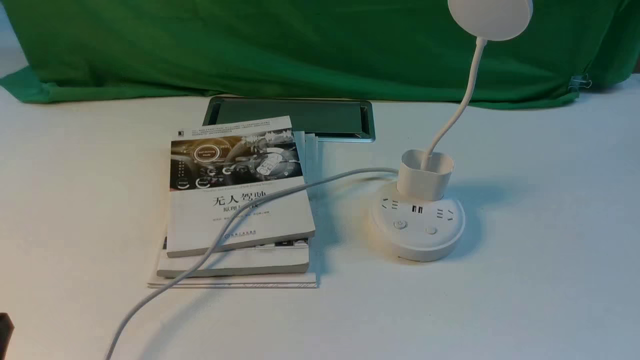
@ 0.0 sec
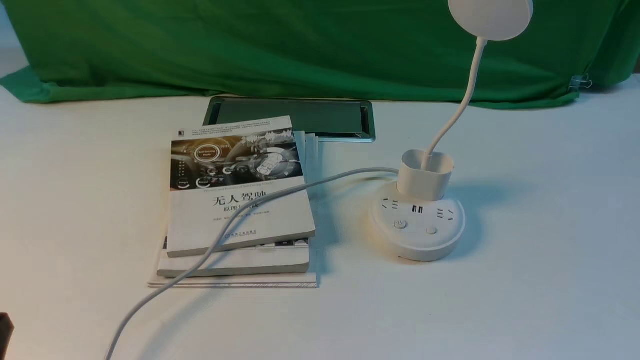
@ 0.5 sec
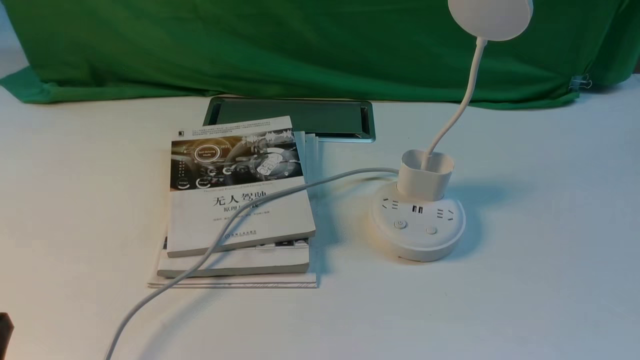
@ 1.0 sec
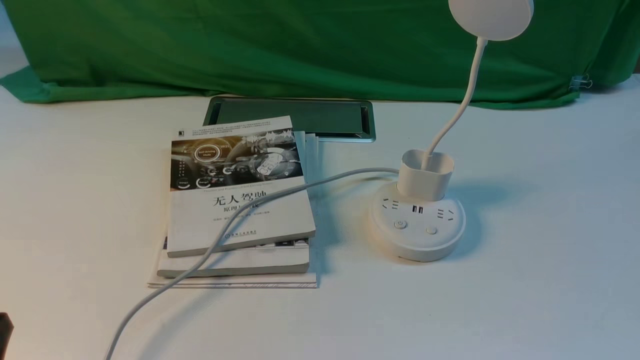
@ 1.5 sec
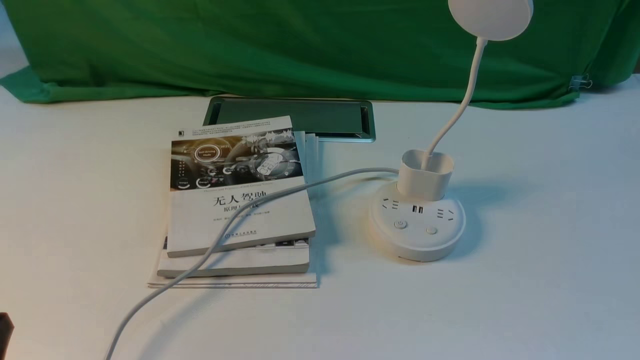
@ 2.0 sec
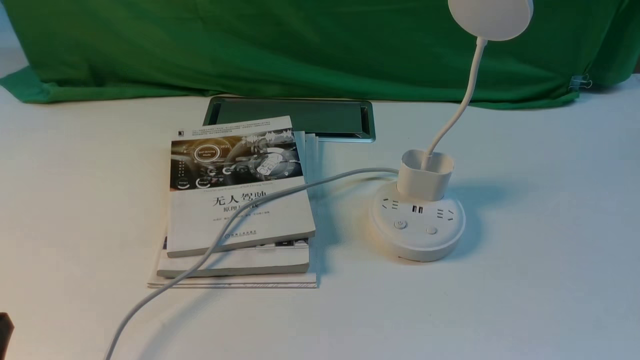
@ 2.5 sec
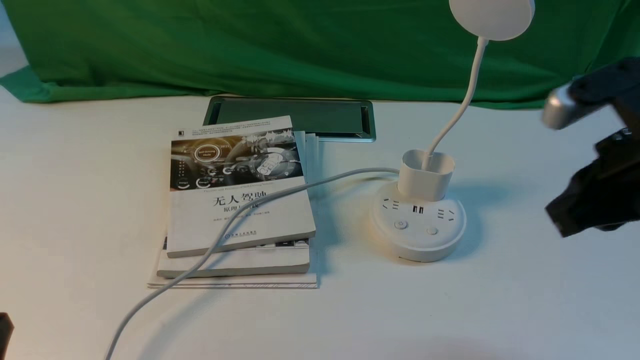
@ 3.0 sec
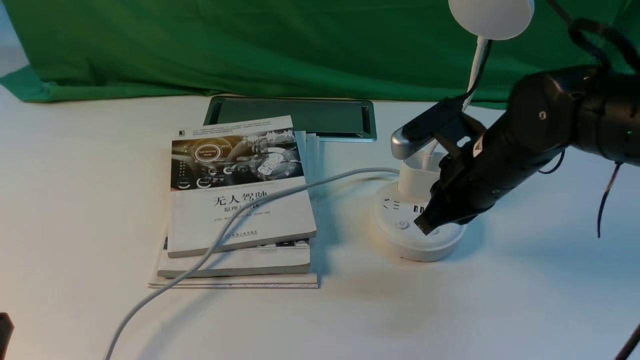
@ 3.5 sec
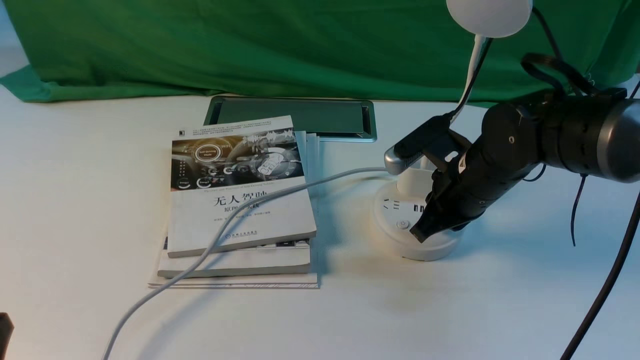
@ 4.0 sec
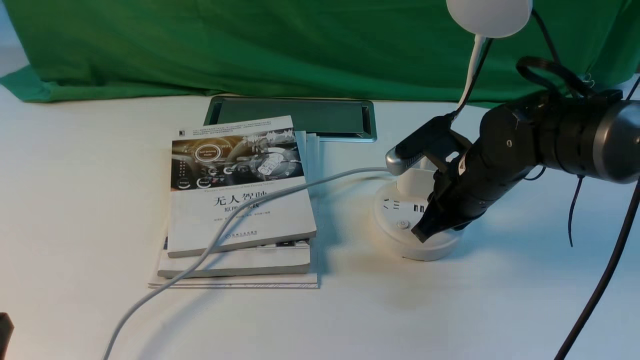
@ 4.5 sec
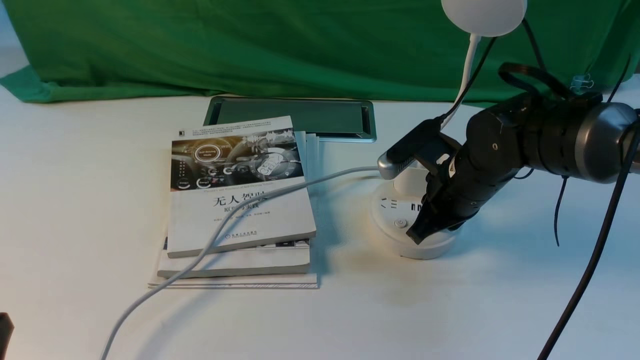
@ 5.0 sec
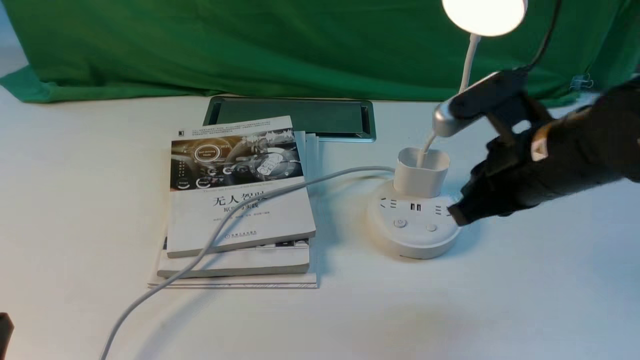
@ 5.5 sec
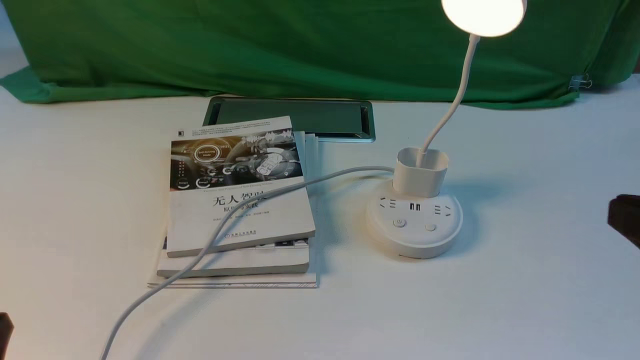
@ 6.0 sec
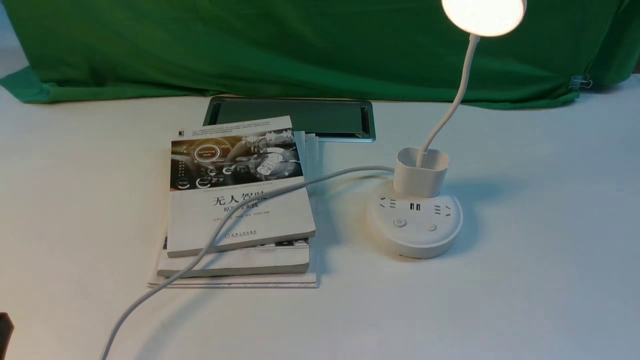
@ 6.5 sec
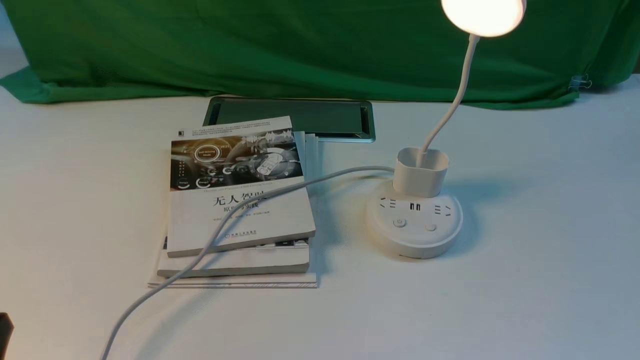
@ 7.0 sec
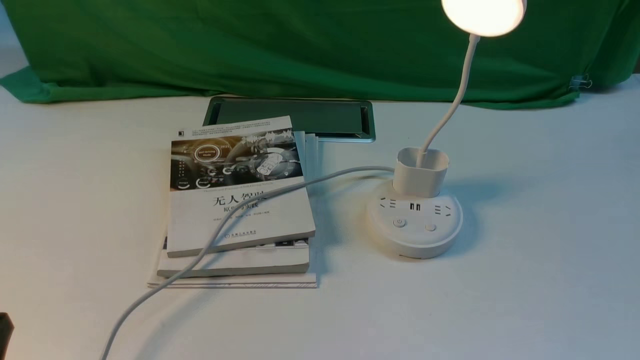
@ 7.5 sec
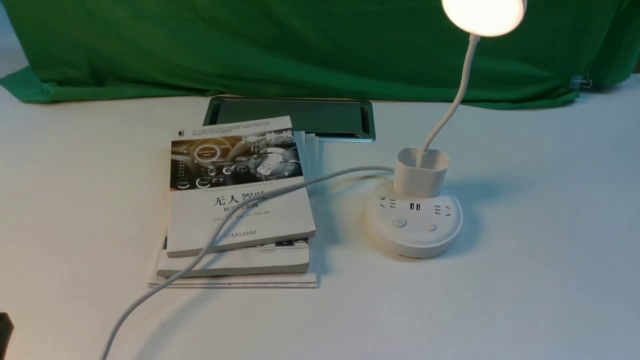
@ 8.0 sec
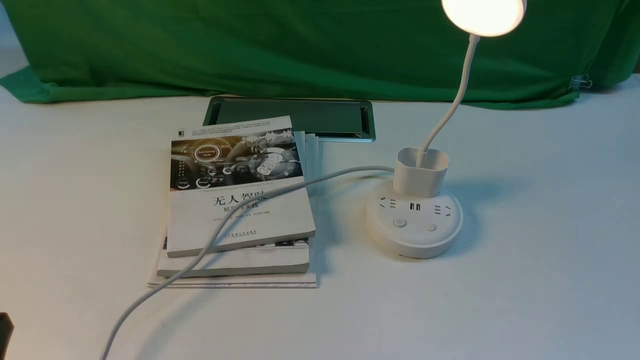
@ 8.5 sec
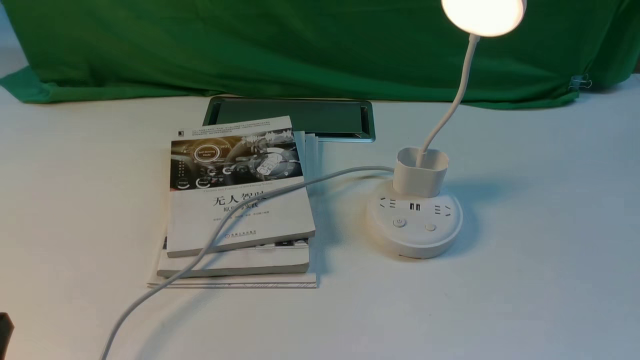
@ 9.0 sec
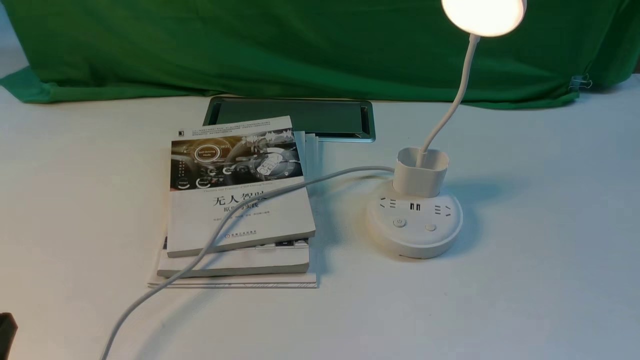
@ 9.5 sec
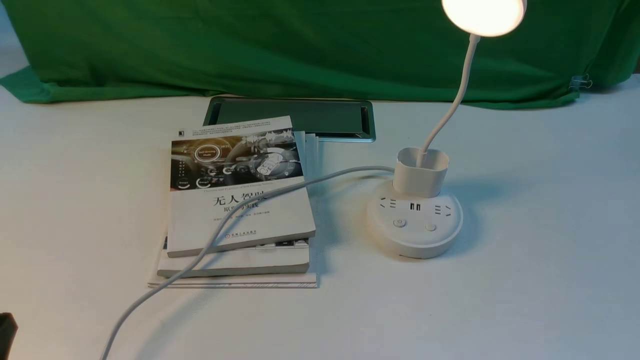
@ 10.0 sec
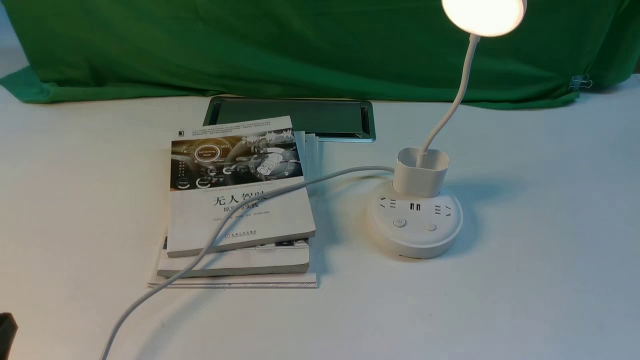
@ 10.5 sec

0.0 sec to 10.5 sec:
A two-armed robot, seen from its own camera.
Step, 0.0 sec to 5.5 sec: use the right arm to press the button switch on the lamp holder.
2.0 sec to 4.0 sec: The right gripper heads forward and to the left, covering approximately 35 cm, and closes.
4.0 sec to 6.5 sec: The right gripper moves backward and to the right, about 30 cm, and opens its fingers.
8.5 sec to 10.5 sec: Both grippers stay put.

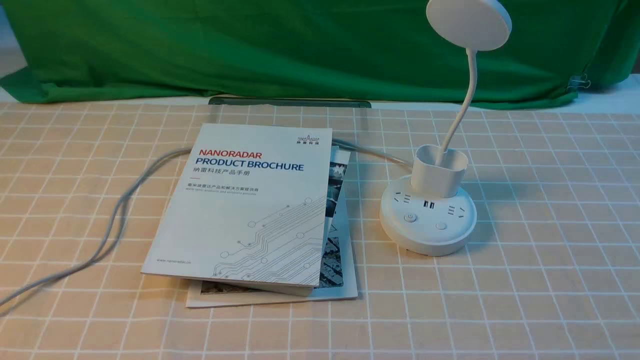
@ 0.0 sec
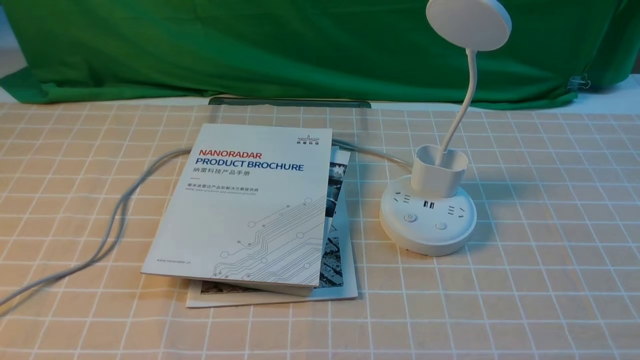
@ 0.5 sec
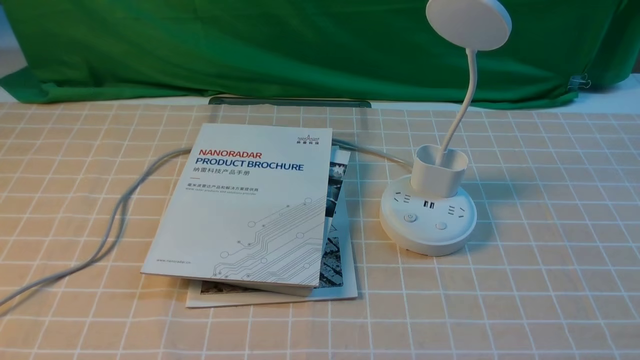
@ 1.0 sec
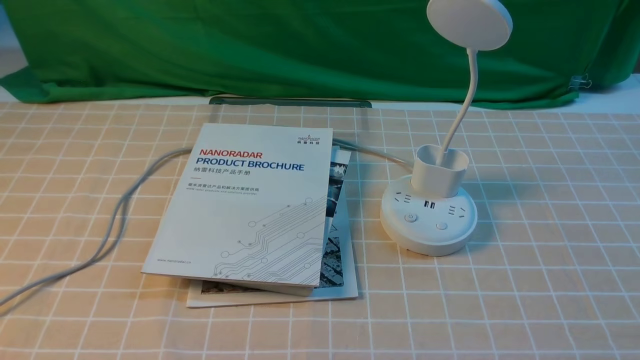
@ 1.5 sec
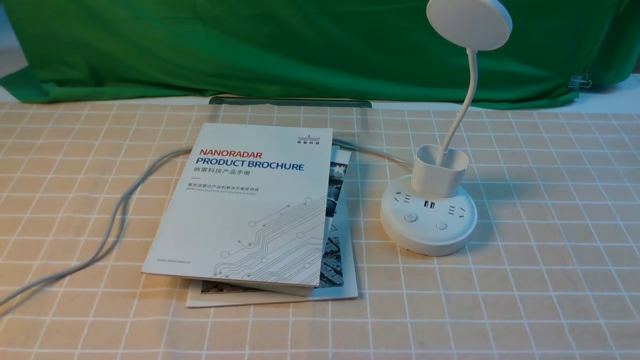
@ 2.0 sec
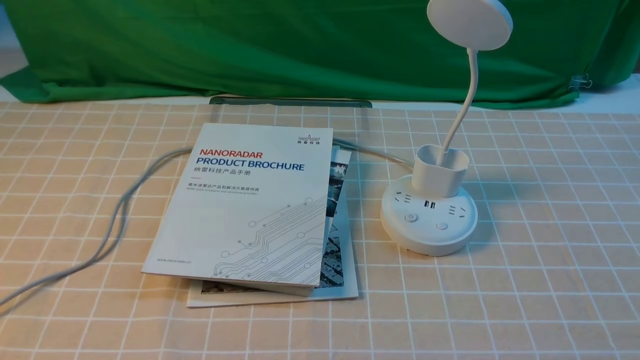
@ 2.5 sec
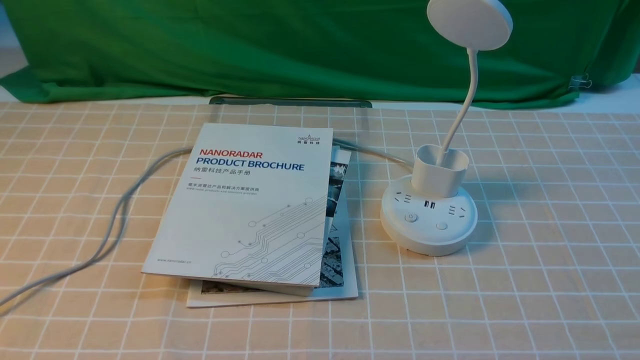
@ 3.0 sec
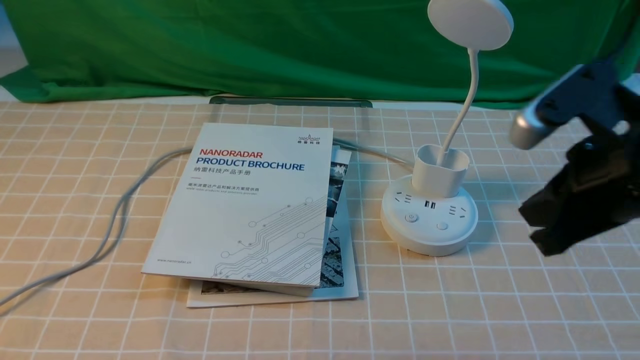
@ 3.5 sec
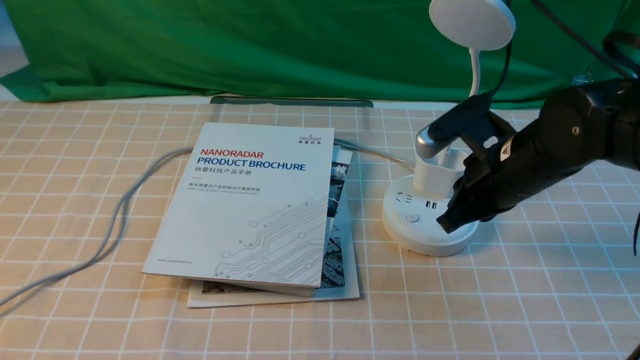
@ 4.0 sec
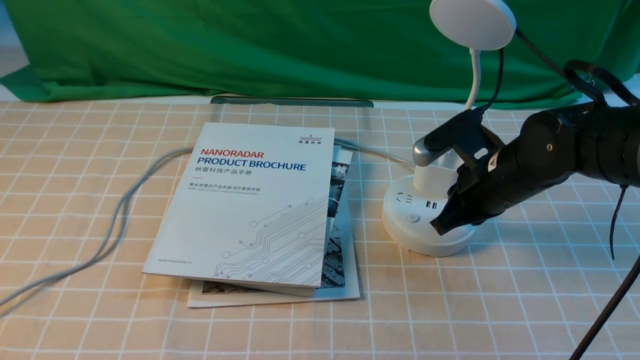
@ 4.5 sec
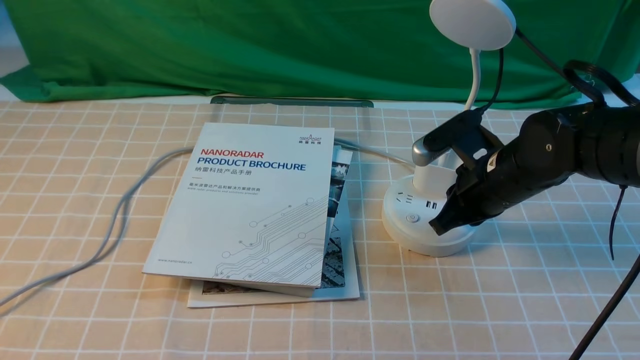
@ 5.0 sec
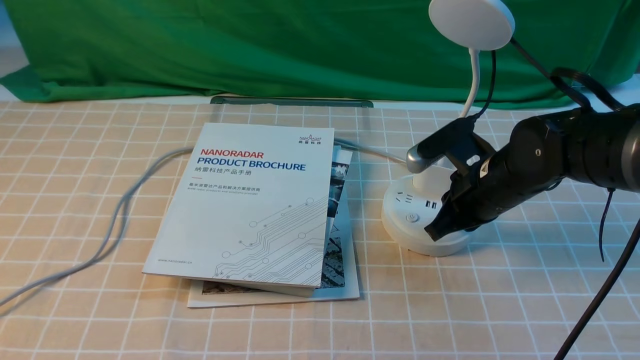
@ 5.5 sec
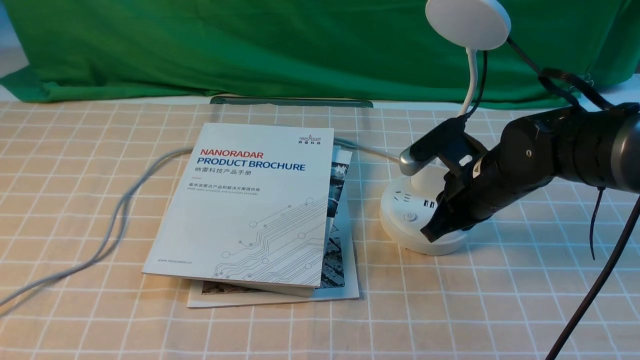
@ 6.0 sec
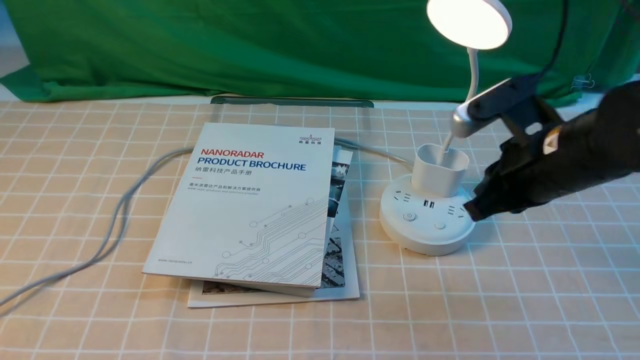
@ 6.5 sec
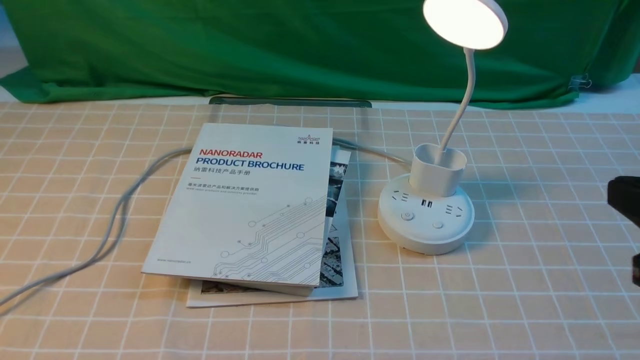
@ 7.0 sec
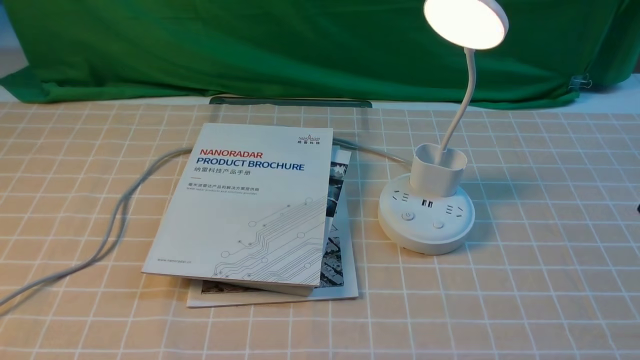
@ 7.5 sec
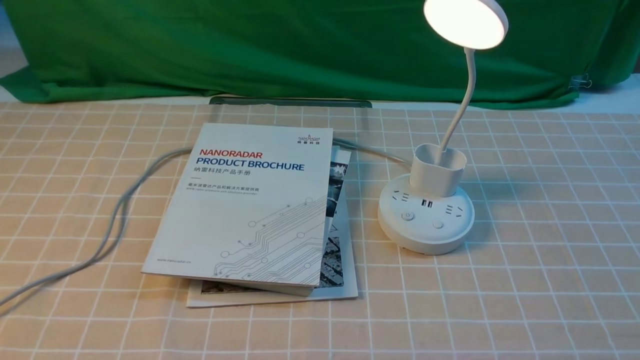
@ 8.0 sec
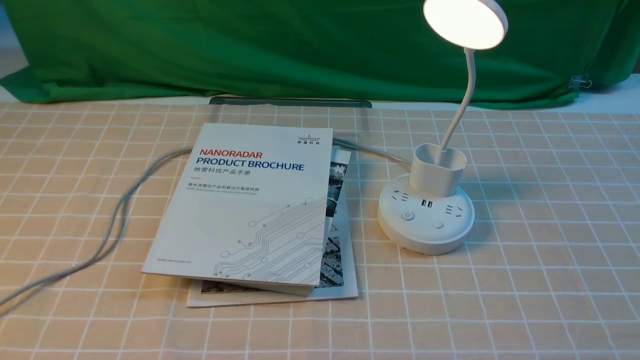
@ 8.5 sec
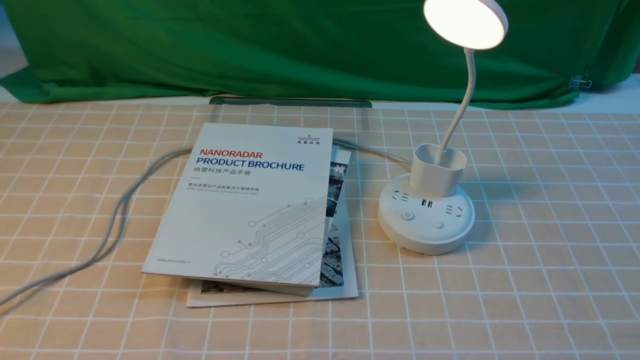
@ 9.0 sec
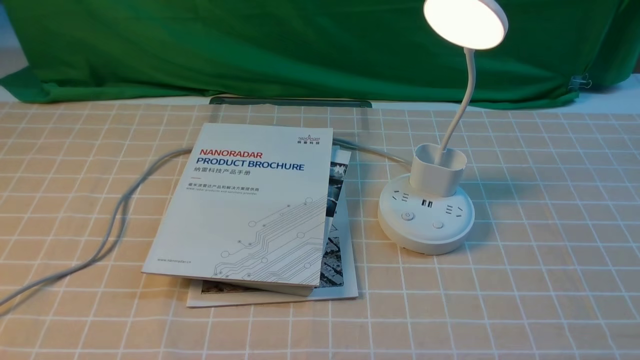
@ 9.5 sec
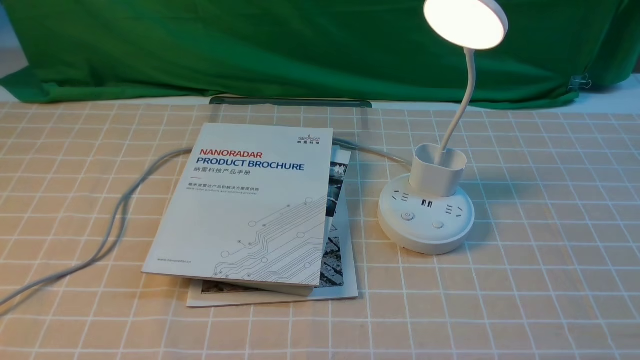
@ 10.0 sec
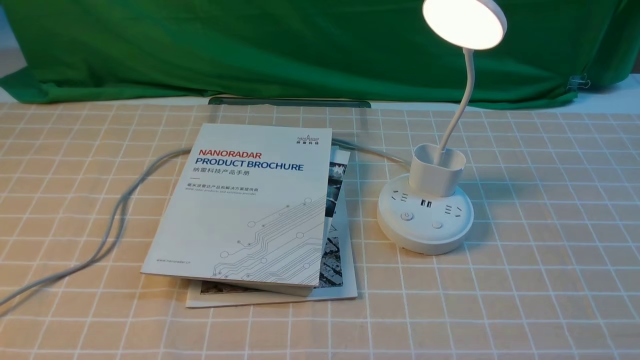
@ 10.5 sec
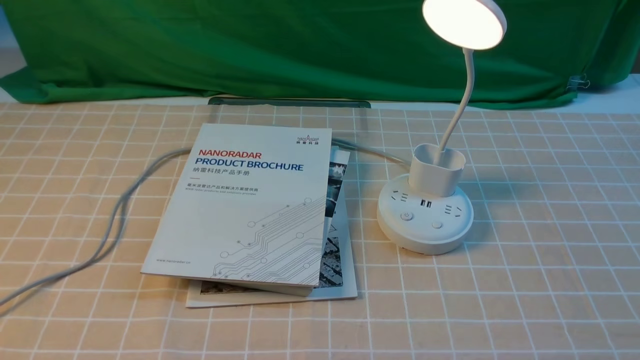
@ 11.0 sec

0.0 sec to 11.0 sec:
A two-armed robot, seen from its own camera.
Step, 0.0 sec to 6.5 sec: use the right arm to press the button switch on the lamp holder.
2.0 sec to 3.5 sec: The right gripper is displaced forward, upward and to the left by about 20 cm, and closes up.
3.5 sec to 5.5 sec: The right gripper moves downward, forward and to the left, some 25 cm.
5.5 sec to 7.5 sec: The right gripper moves backward, upward and to the right, approximately 30 cm.
